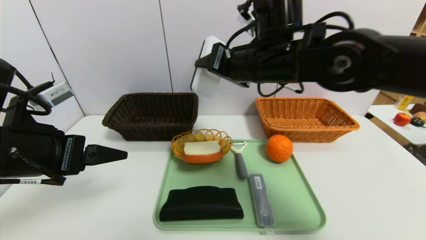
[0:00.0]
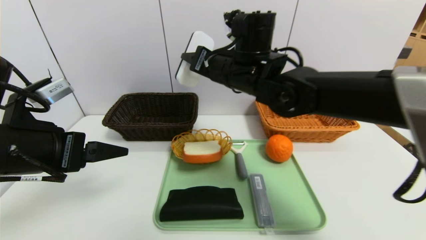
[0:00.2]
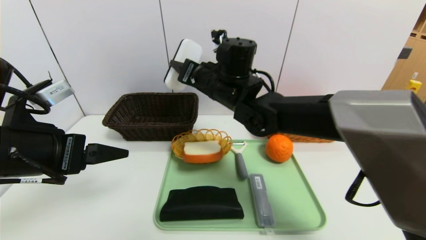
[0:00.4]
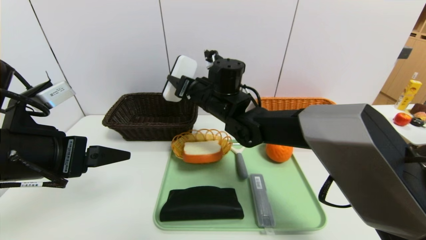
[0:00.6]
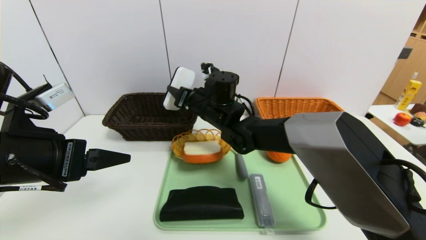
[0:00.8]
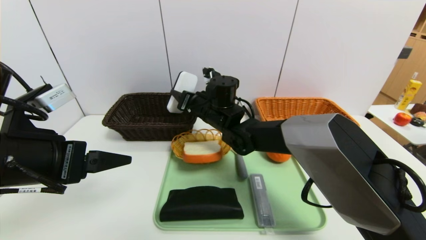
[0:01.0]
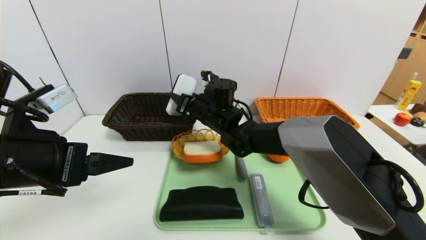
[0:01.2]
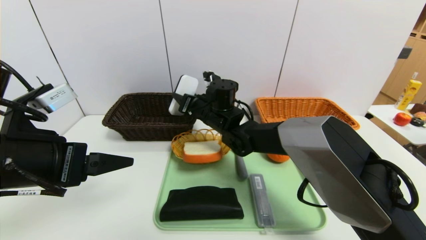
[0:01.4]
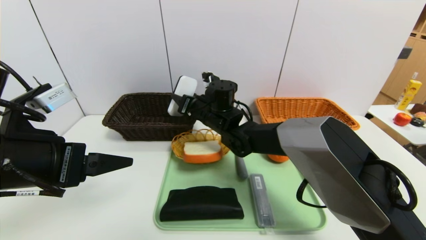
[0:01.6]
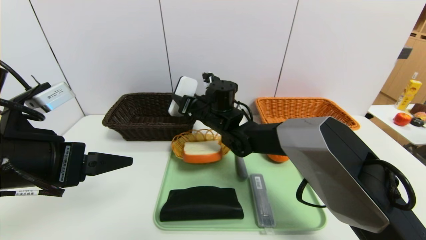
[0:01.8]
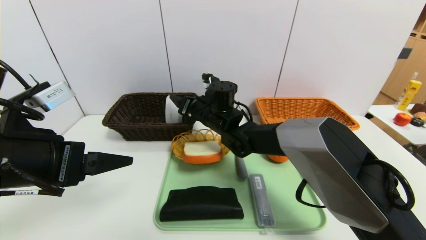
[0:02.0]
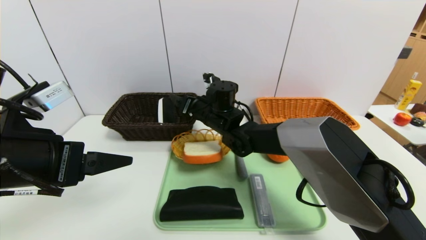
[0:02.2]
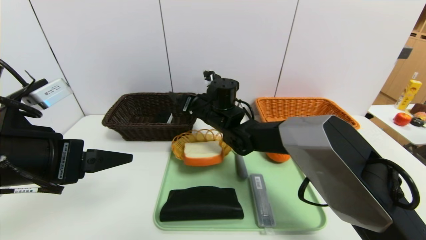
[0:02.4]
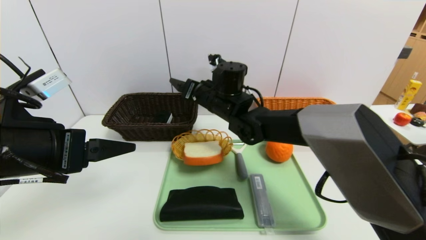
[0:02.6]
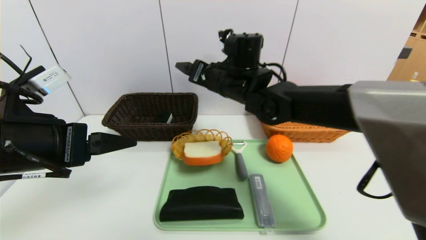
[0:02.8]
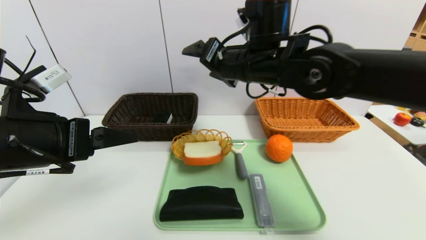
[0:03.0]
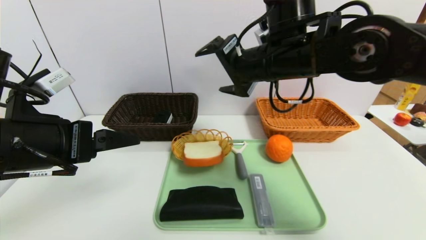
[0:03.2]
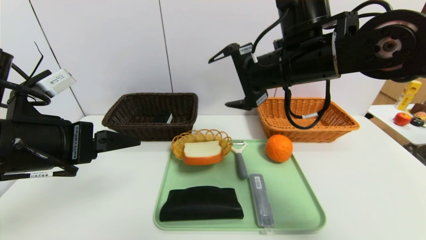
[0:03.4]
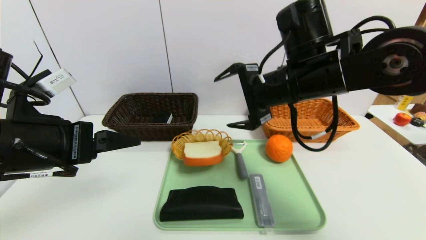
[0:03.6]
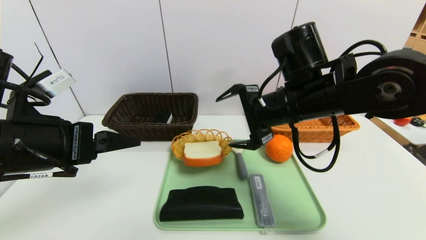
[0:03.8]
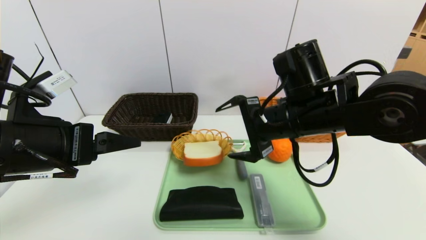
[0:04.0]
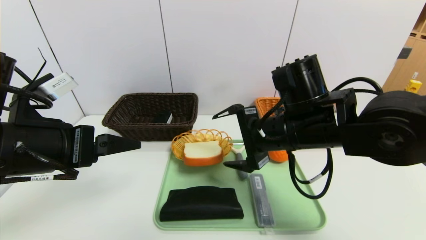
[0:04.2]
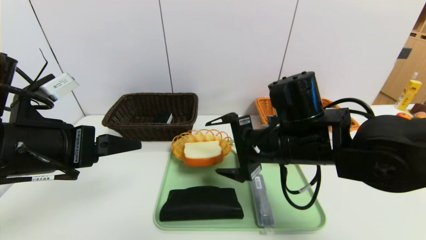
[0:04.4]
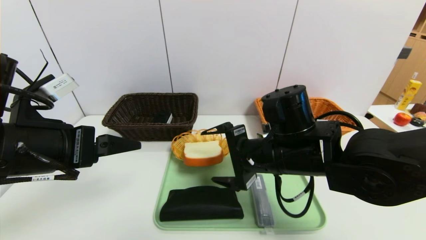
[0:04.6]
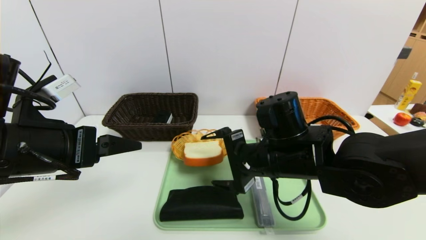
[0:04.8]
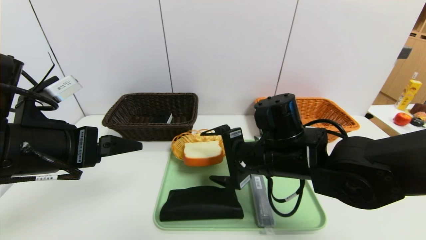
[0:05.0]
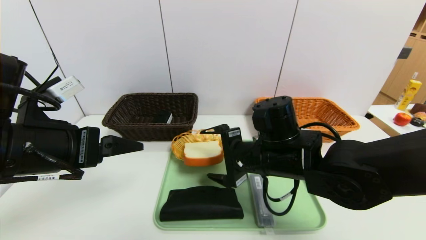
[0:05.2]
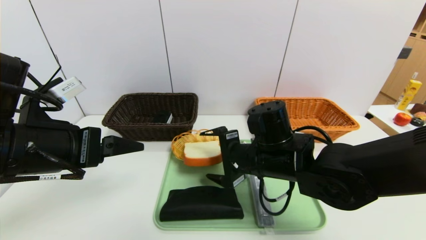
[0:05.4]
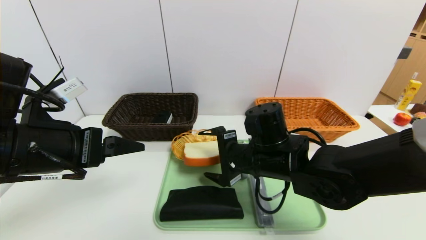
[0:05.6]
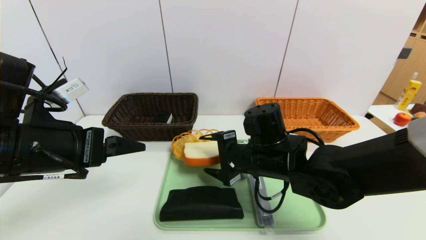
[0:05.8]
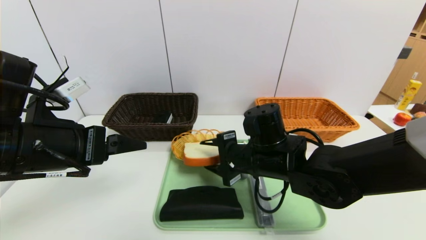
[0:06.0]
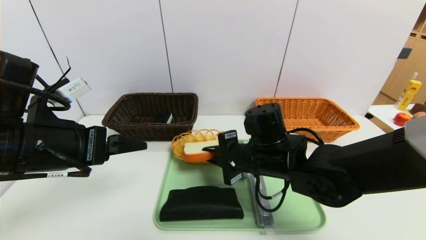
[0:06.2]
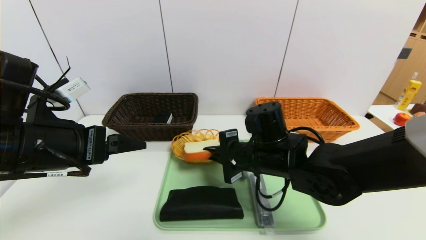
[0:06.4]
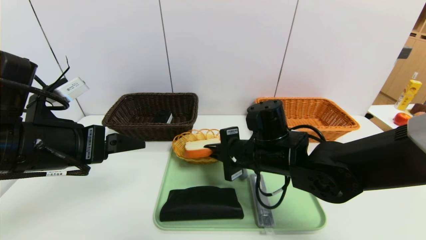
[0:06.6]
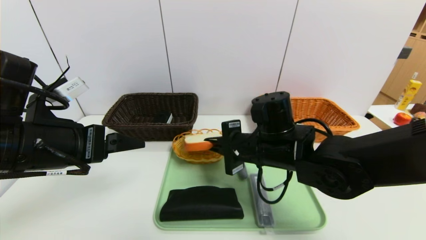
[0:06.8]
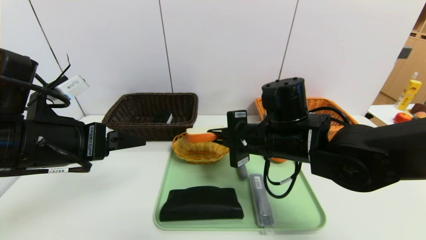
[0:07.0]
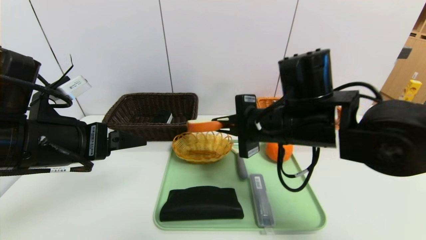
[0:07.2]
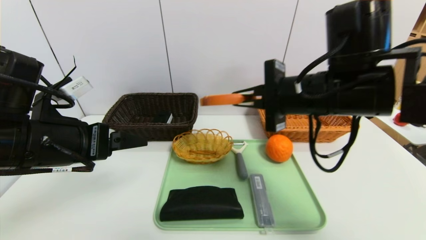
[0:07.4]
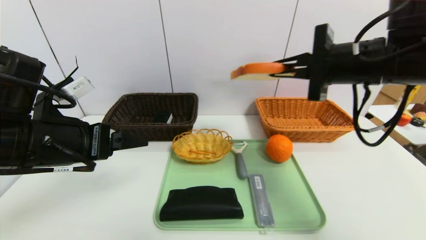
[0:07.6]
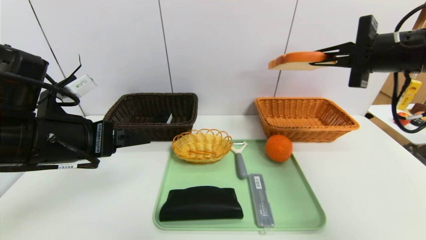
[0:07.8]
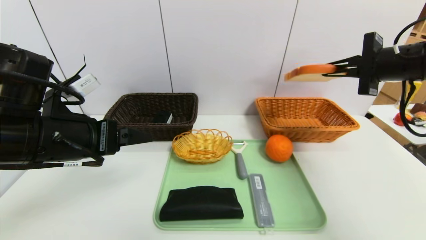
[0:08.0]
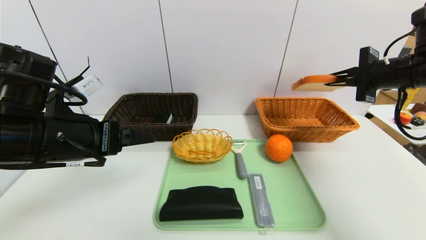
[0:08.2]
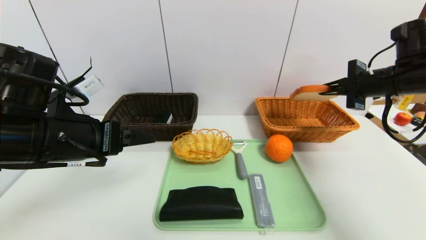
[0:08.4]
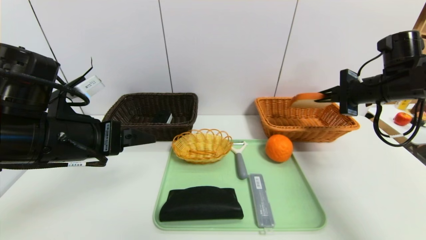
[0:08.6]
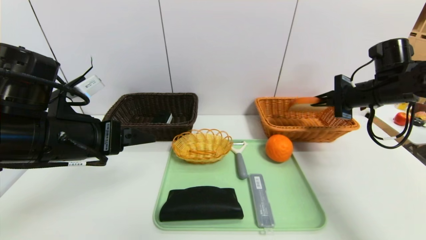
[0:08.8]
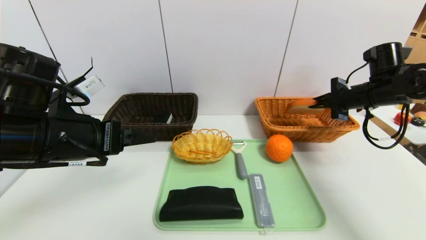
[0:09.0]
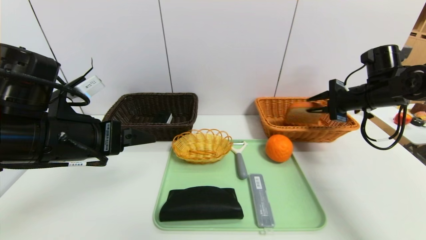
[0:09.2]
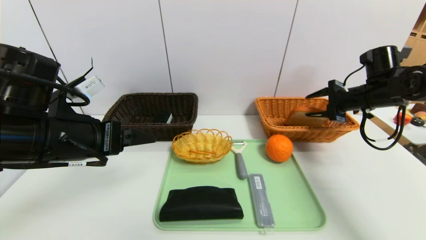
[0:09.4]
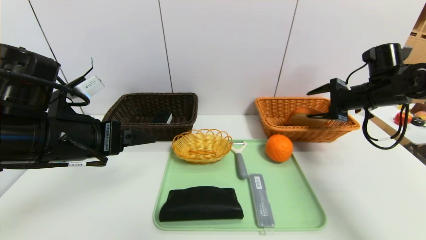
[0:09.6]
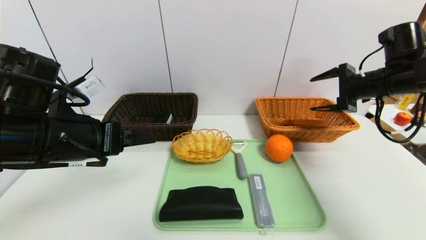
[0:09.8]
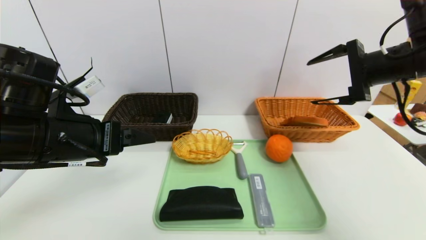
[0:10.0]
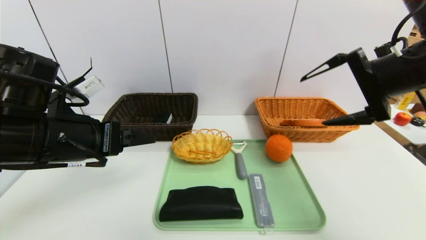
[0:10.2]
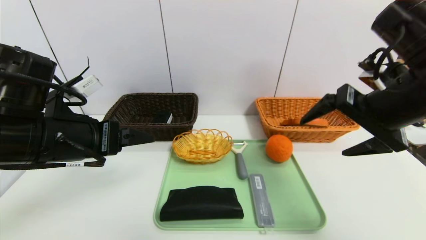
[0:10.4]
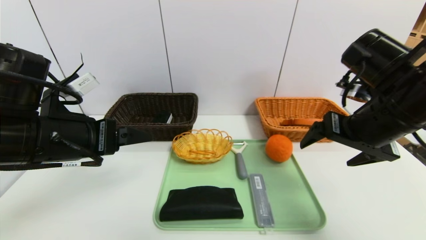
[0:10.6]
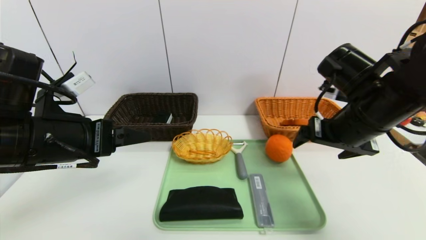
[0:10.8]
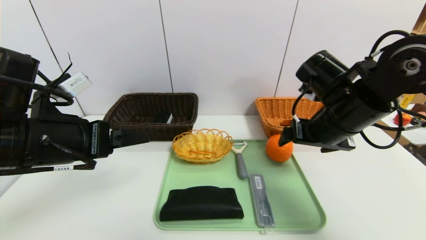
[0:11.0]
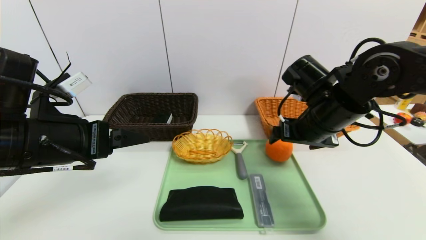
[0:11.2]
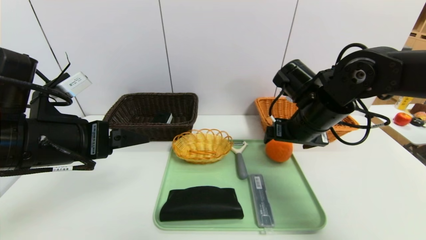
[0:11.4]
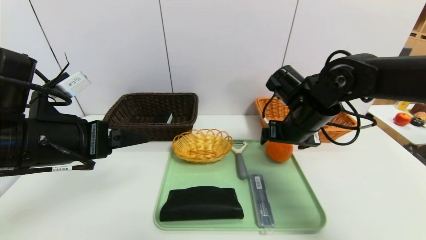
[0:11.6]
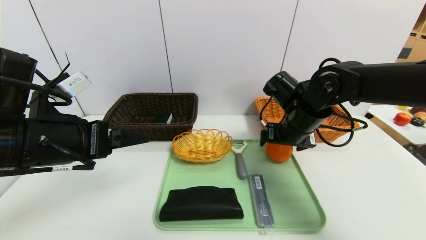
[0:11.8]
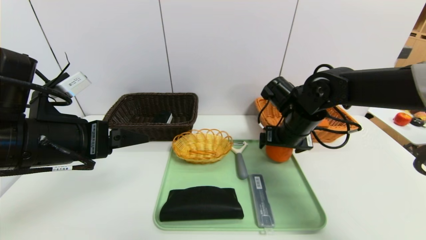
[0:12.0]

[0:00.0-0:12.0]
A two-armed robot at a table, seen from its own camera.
Task of the whole recording: place the food in the right basket with the right gripper, and place the non food items in the left basket with the left gripper.
Step, 0:03.0 to 0:10.6: Grasp the bread slice and put it in the right basket.
0:00.0 to 0:01.6: The right gripper goes some 20 cm downward, forward and to the left.
0:01.6 to 0:03.0: The right gripper goes some 20 cm upward, backward and to the right, and opens.
0:03.0 to 0:04.4: The right gripper is displaced downward and backward by roughly 15 cm.
0:04.4 to 0:06.0: The right gripper shifts approximately 5 cm downward, and closes.
0:06.0 to 0:07.6: The right gripper is displaced upward and to the right by some 20 cm, and closes up.
0:07.6 to 0:09.0: The right gripper travels to the right, forward and downward by some 20 cm.
0:09.0 to 0:10.4: The right gripper is displaced backward, to the left and upward by roughly 20 cm, and opens up.
0:10.4 to 0:12.0: The right gripper travels downward, forward and to the left by about 20 cm.

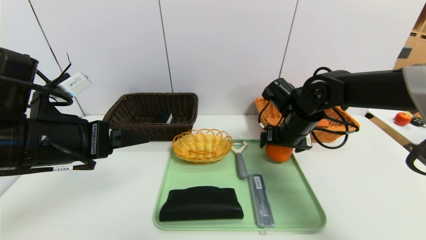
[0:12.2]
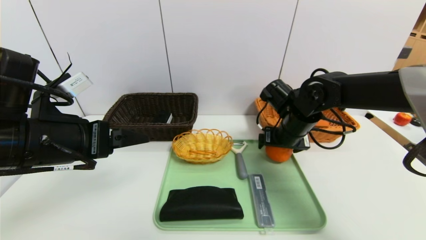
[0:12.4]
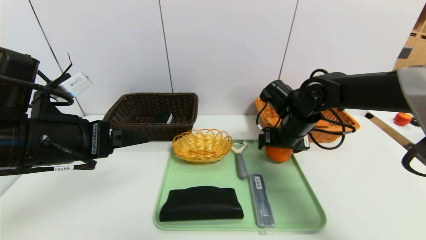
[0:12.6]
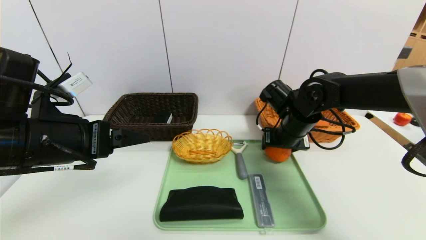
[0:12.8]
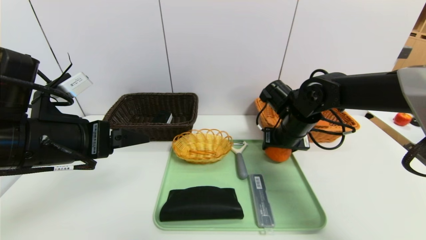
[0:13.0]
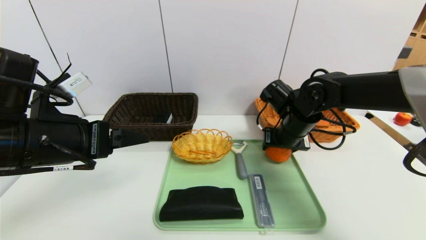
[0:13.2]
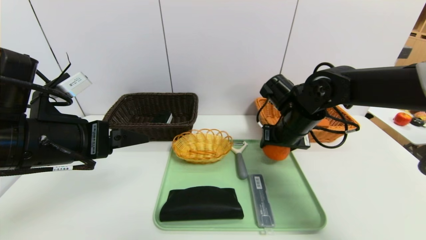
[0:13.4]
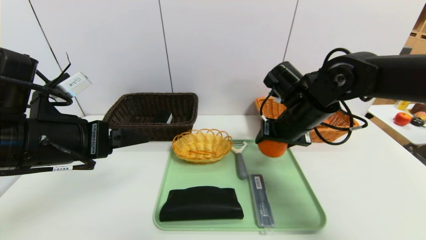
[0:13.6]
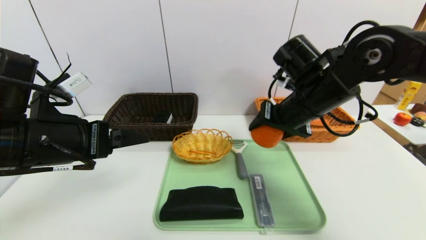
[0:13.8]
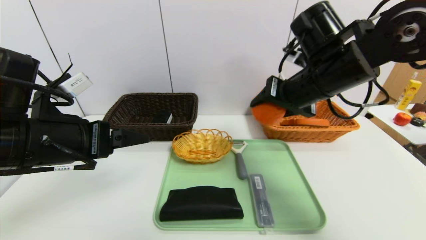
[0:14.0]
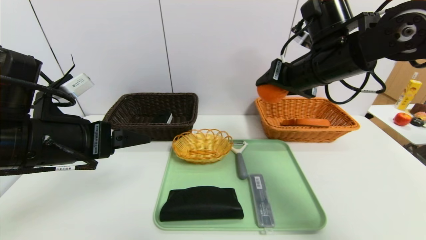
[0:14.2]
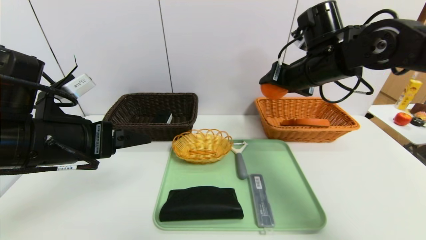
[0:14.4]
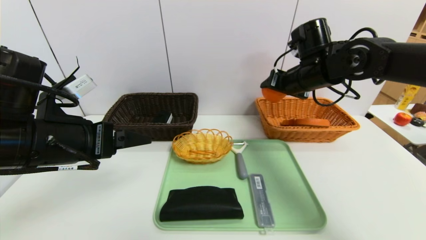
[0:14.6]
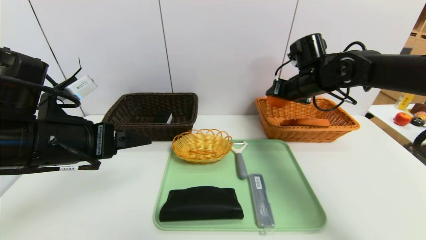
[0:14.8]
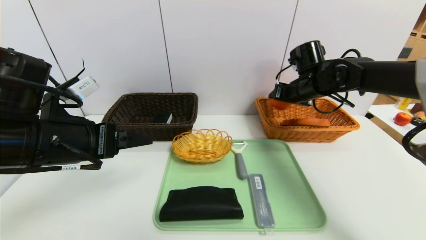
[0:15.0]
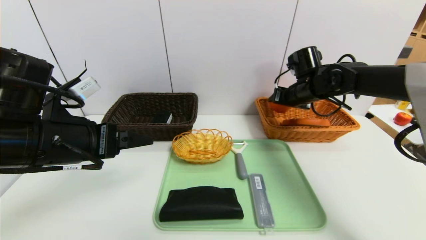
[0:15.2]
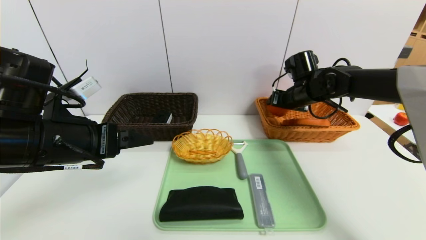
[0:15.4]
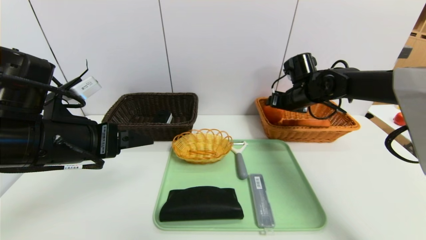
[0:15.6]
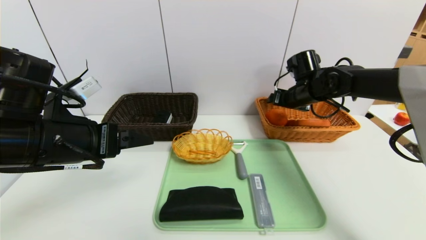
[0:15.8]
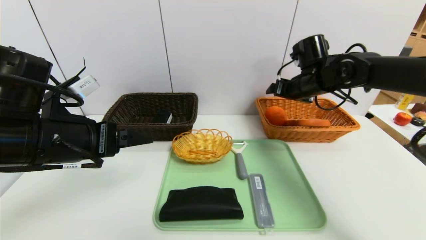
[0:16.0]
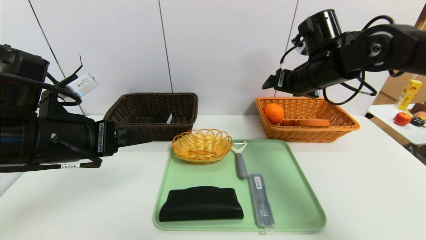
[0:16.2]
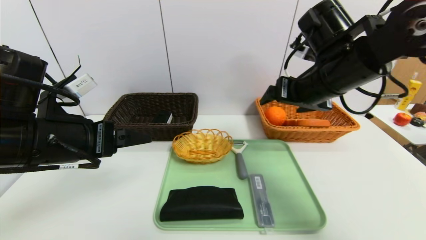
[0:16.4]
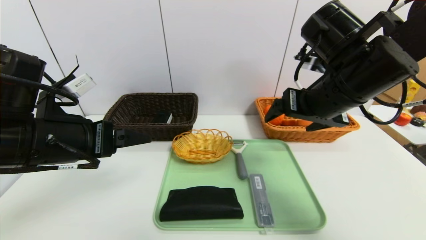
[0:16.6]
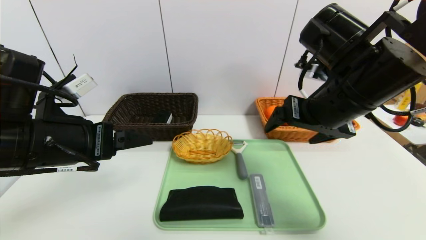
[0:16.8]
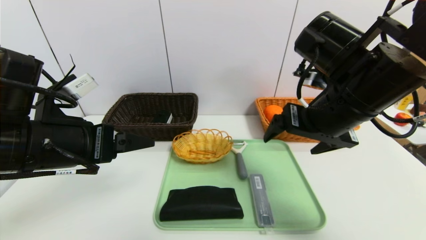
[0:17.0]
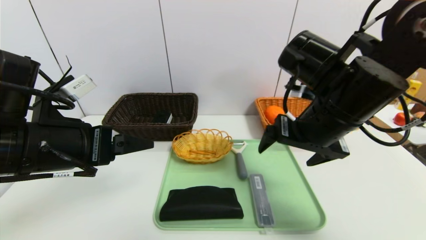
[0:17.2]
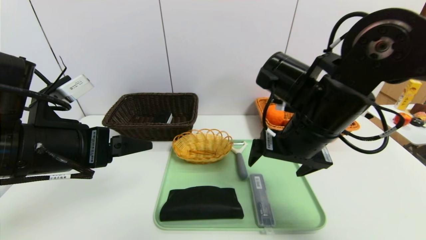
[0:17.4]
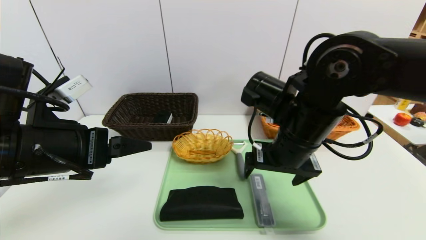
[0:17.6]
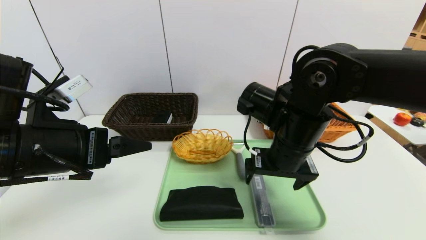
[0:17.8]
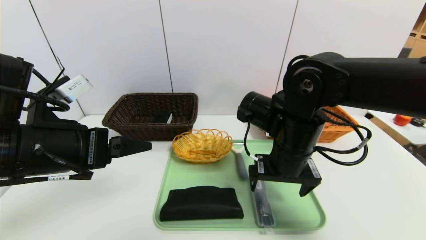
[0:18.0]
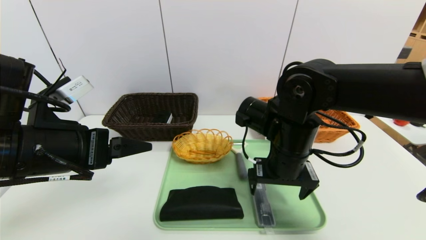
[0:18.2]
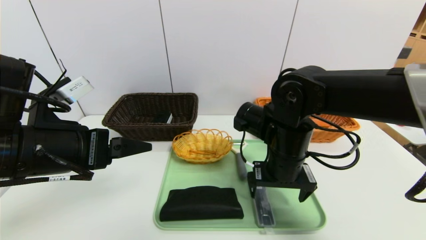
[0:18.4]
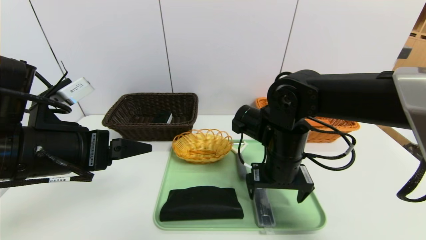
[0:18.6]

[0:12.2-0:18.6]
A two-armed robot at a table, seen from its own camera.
Task of the whole recording: place the food in the right basket with the right gripper, and place the non food items in the left basket with the left gripper.
Step, 0:12.2 to 0:16.0: Grasp the orange and put it in the right basket.
0:12.2 to 0:13.8: The right gripper travels upward and backward by roughly 10 cm.
0:13.8 to 0:15.4: The right gripper shifts roughly 15 cm forward and to the right.
0:15.4 to 0:17.0: The right gripper travels backward and upward by about 20 cm.
0:17.0 to 0:18.6: The right gripper moves downward and to the left, some 15 cm.
